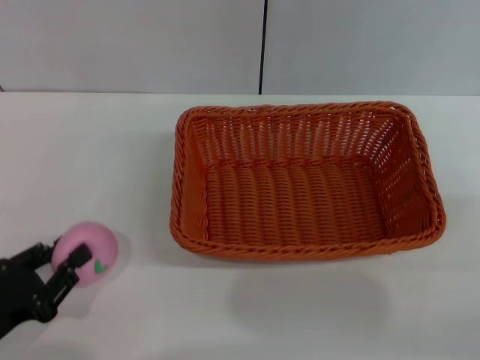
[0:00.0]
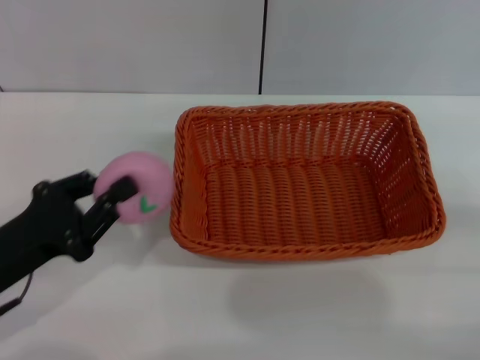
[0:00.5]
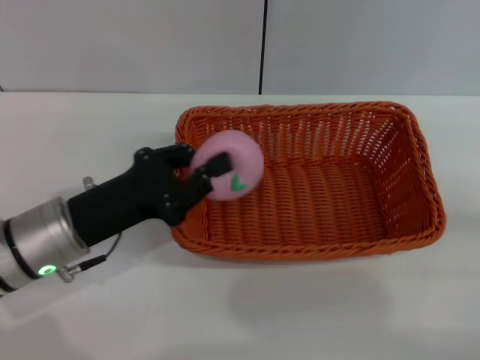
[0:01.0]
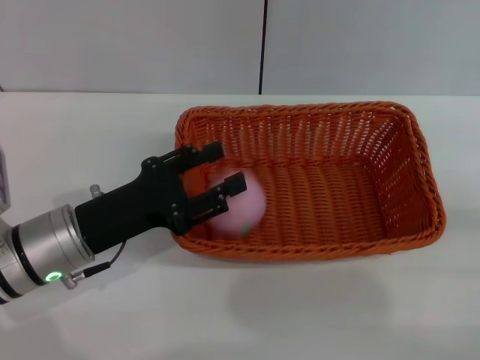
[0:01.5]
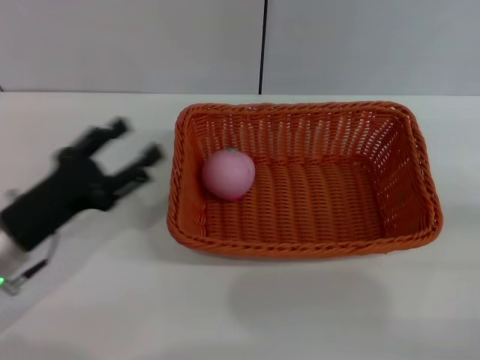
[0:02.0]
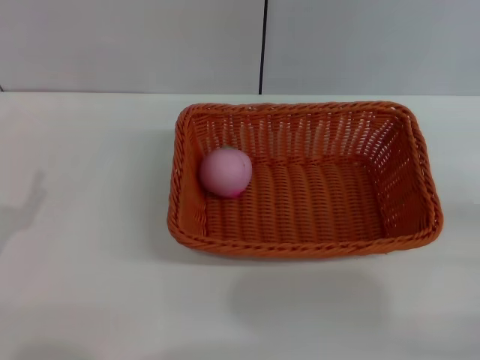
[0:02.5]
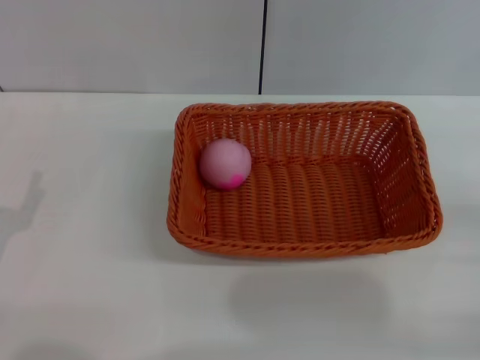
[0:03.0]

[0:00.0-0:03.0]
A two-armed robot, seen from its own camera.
Step, 0:00.5 to 0:01.5: Place the peach into the basket with the left gripper.
0:00.0 to 0:01.5: The left gripper heads forward and to the right, covering approximately 15 cm.
0:01.5 to 0:03.0: The left gripper travels to the left and backward by some 15 cm, and opens.

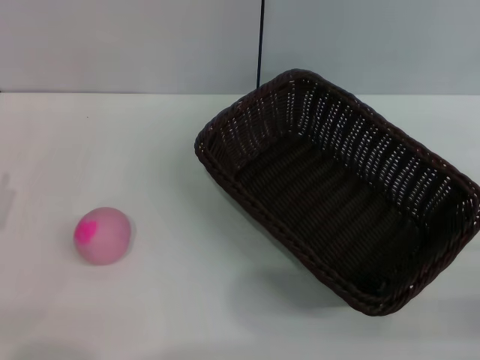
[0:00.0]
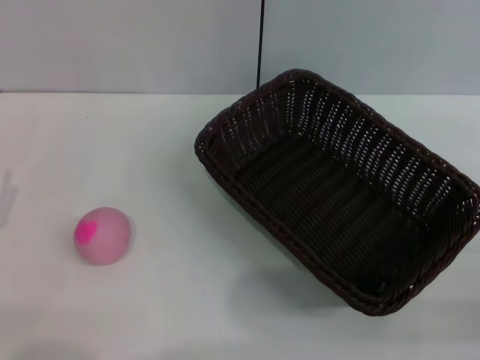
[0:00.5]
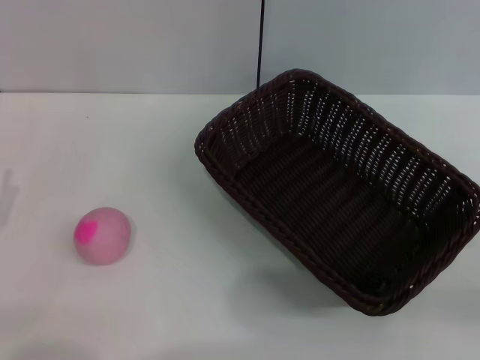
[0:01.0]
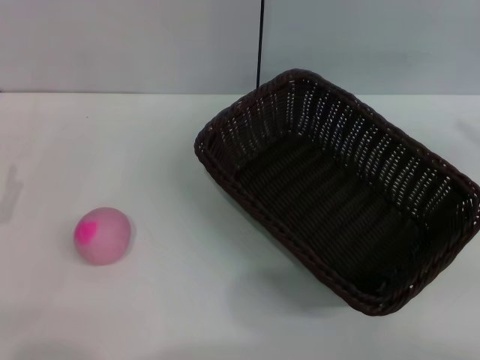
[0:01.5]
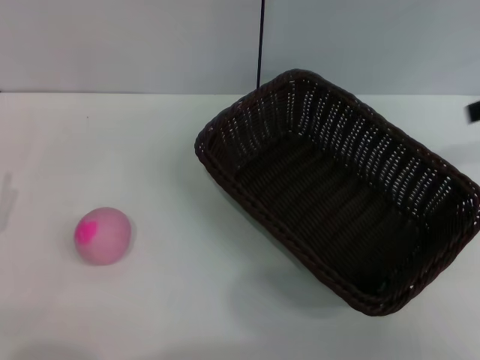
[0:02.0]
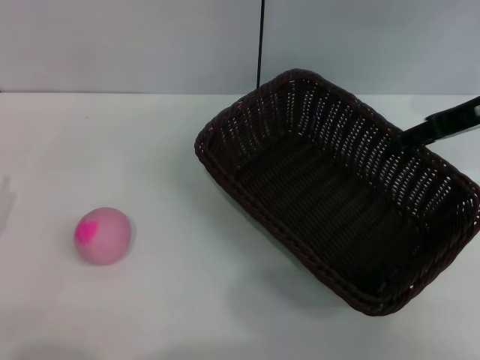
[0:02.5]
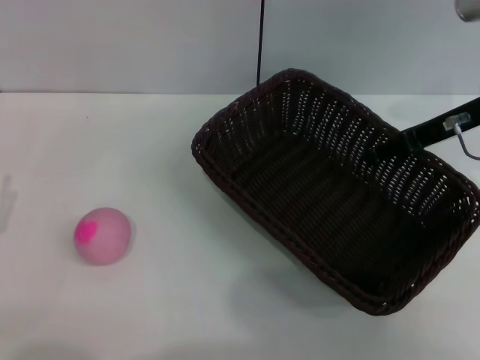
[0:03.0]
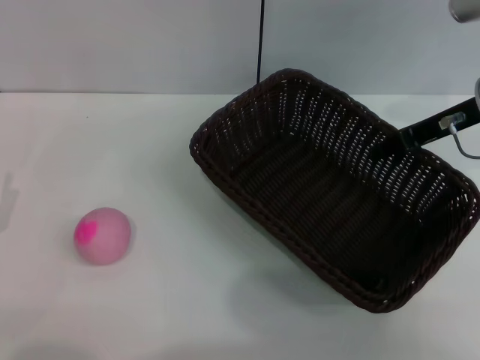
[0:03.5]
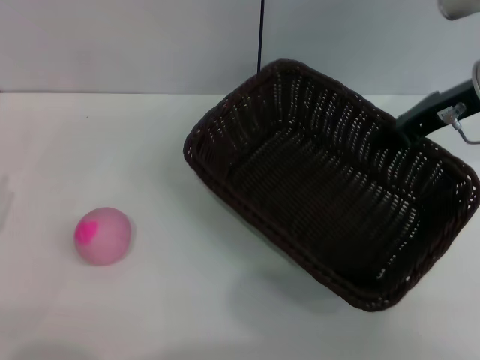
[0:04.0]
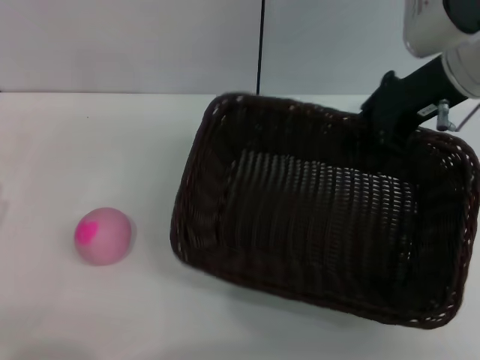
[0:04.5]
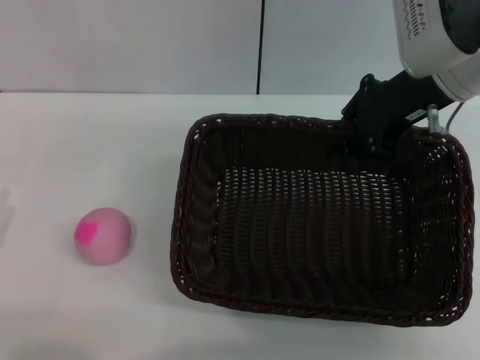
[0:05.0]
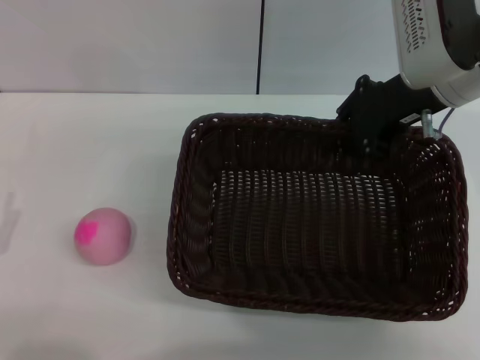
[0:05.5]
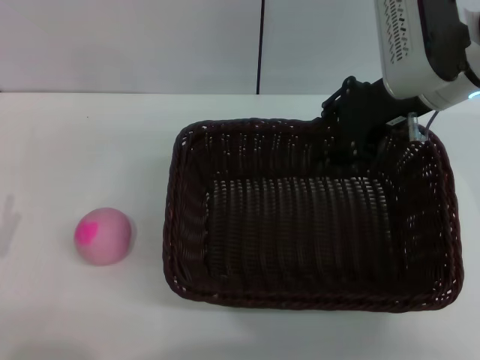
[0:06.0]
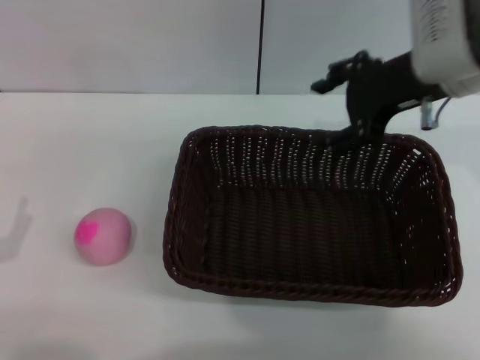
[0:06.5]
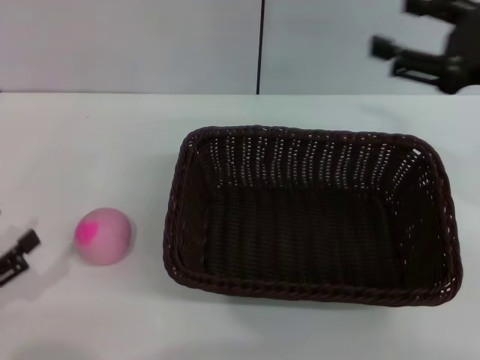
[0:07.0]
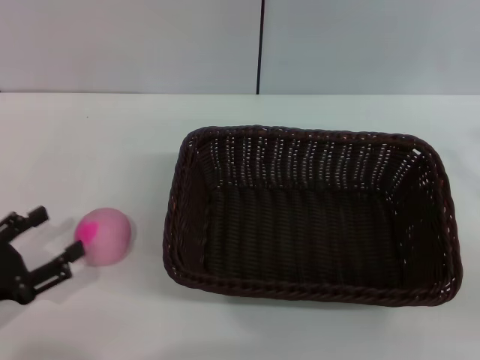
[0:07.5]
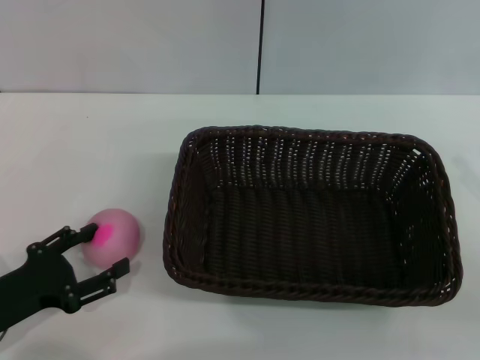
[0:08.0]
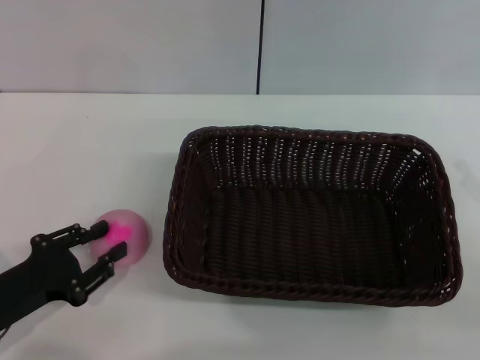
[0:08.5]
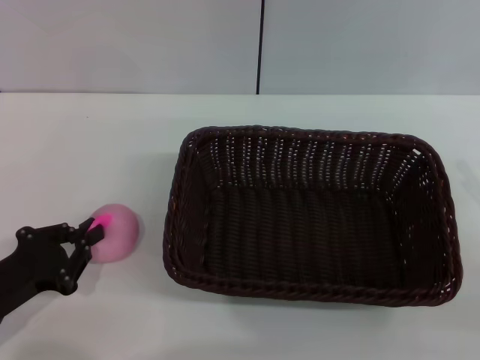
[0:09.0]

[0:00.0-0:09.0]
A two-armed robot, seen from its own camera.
Step, 0:00.0 to 0:04.0: Pick up the dark basket with the right gripper.
Step, 0:04.5 to 0:06.5: Place the dark basket in the center of view with the right gripper.
0:00.0 to 0:02.0: The right gripper shifts roughly 25 cm upward and forward, and opens.
0:02.0 to 0:04.5: The right gripper goes approximately 15 cm to the left, and closes up.
0:04.5 to 0:07.0: The right gripper moves to the right and backward, roughly 15 cm, and opens.
0:07.0 to 0:09.0: The left gripper travels to the right by some 5 cm, and closes up. Meanwhile the right gripper goes some 15 cm downward, backward and to the right.

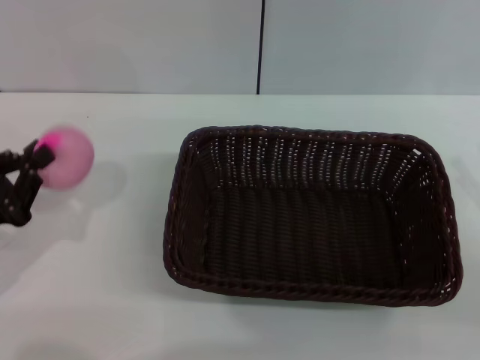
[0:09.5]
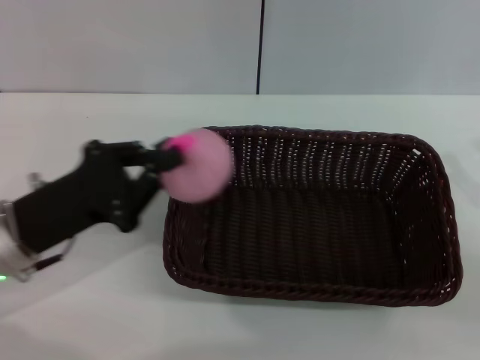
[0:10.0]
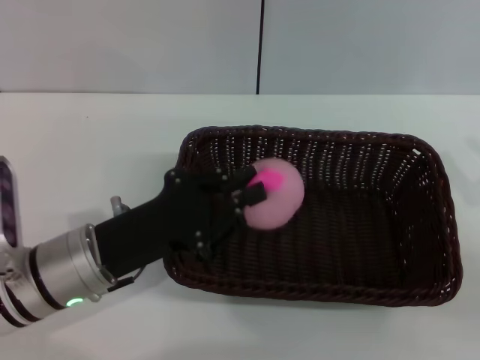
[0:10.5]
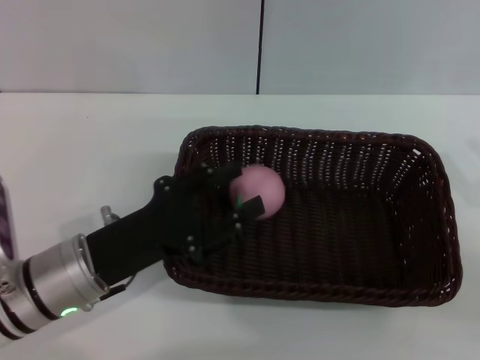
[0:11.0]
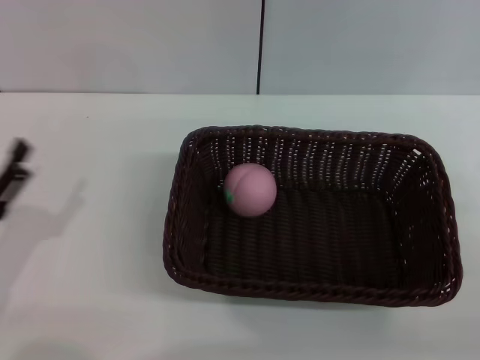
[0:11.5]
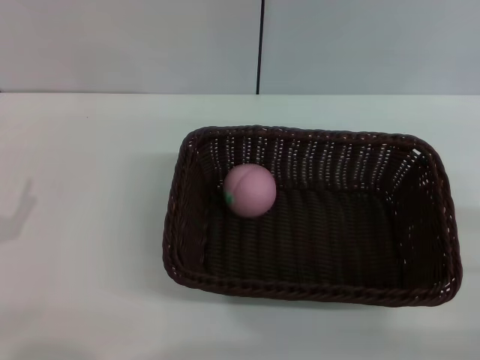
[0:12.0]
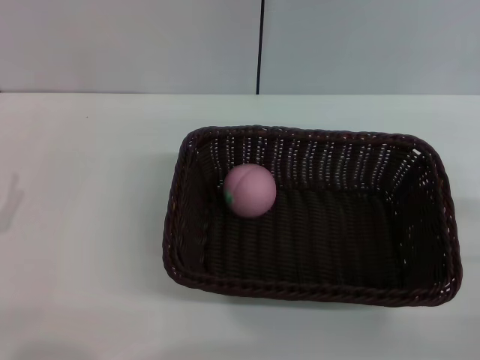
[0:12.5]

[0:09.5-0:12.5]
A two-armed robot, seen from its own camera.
Step, 0:10.0 to 0:11.0: Place the peach into the basket with the left gripper.
0:09.5 to 0:11.0: The left gripper shifts some 15 cm to the right, and opens its fingers.
0:11.0 to 0:12.5: The left gripper heads to the left and backward, covering some 15 cm, and opens.

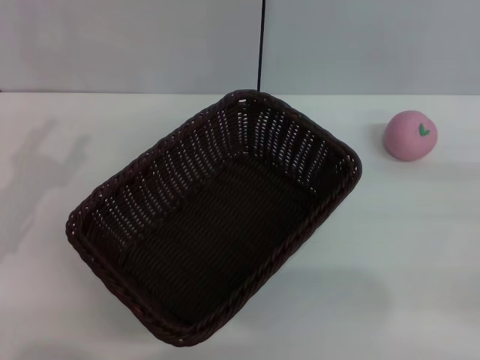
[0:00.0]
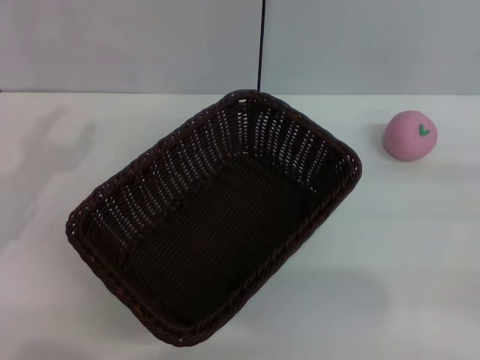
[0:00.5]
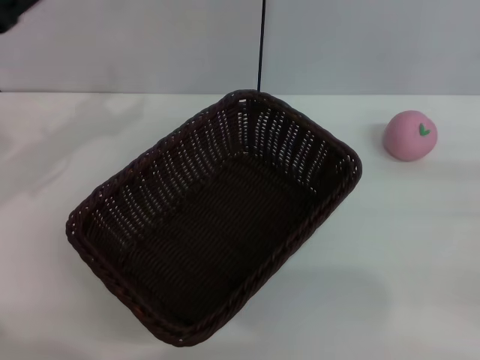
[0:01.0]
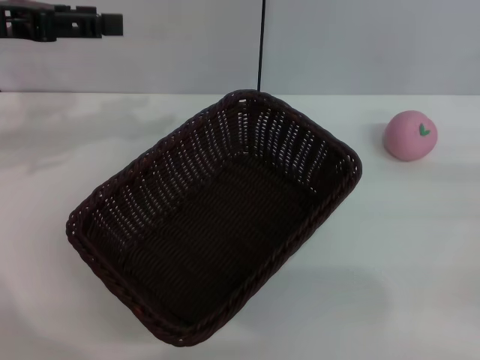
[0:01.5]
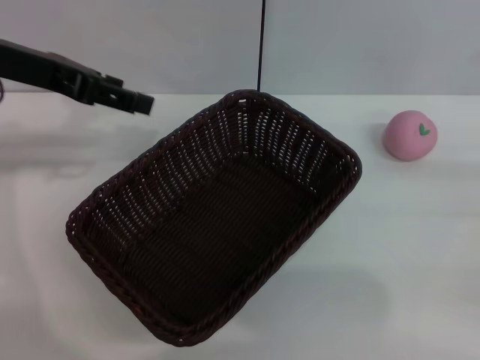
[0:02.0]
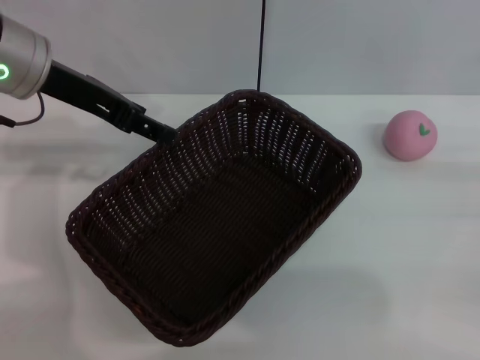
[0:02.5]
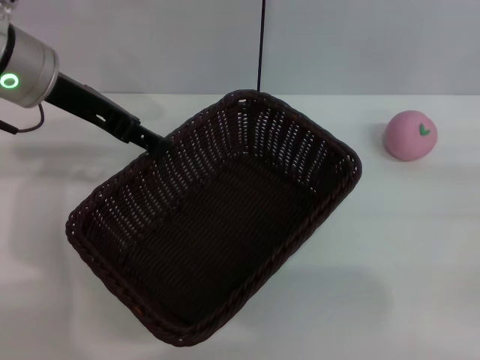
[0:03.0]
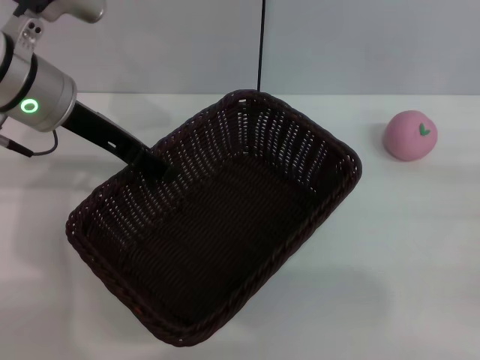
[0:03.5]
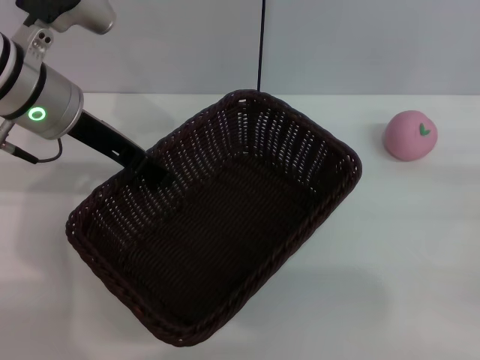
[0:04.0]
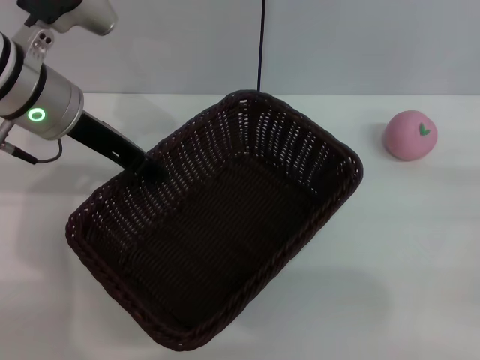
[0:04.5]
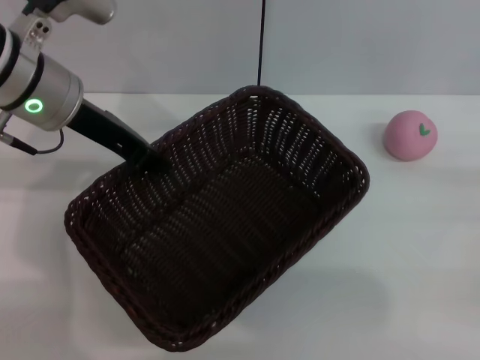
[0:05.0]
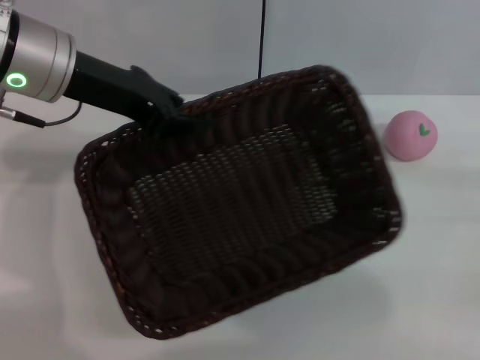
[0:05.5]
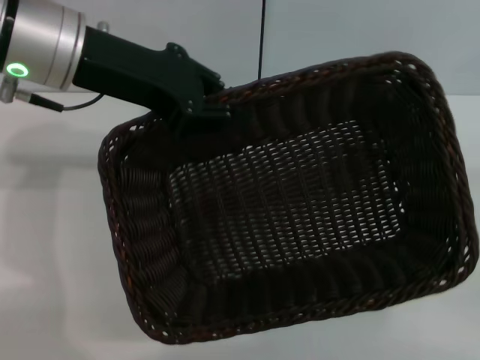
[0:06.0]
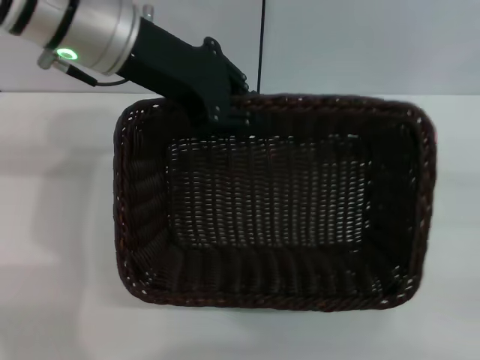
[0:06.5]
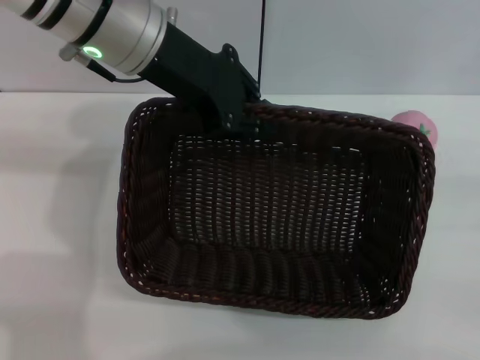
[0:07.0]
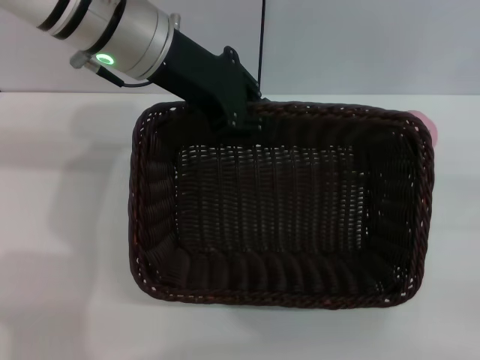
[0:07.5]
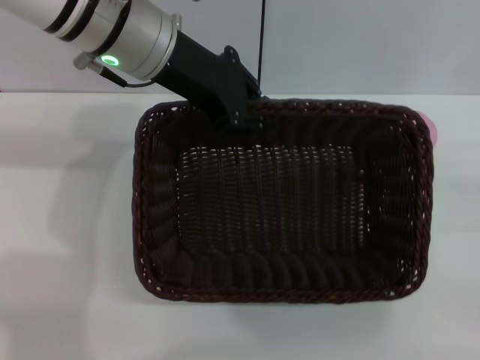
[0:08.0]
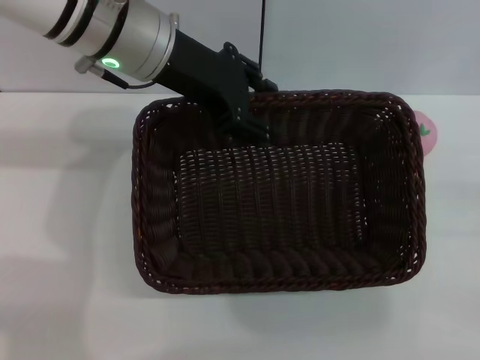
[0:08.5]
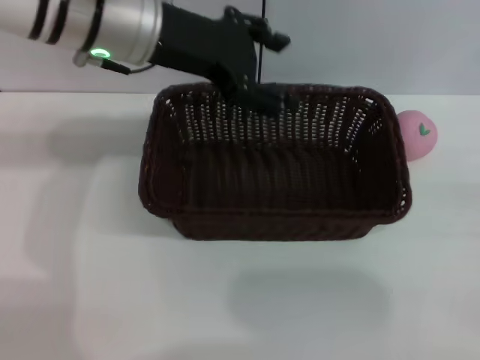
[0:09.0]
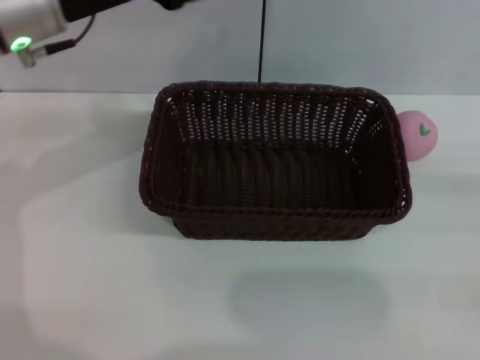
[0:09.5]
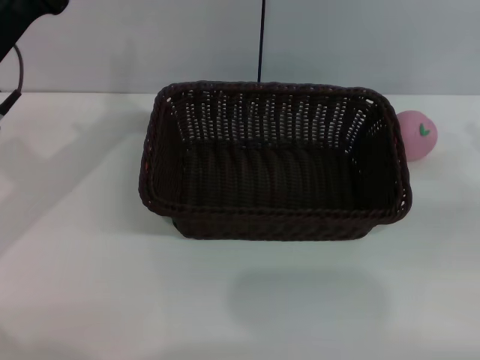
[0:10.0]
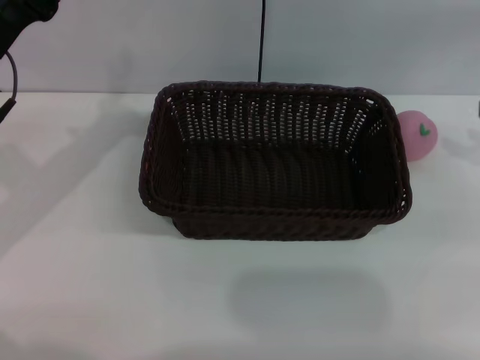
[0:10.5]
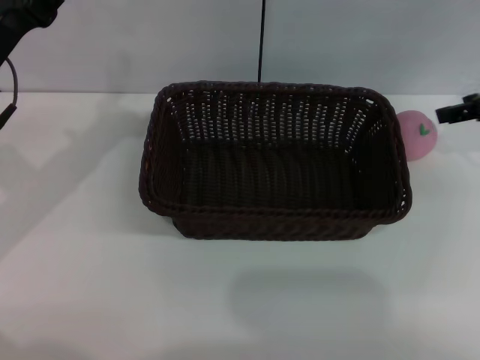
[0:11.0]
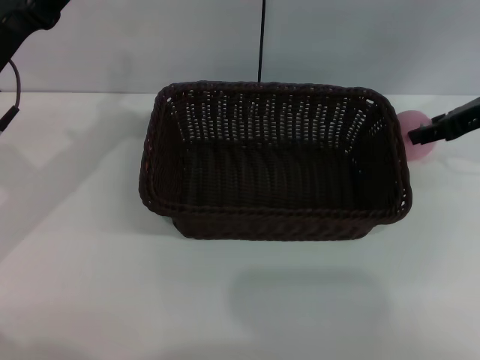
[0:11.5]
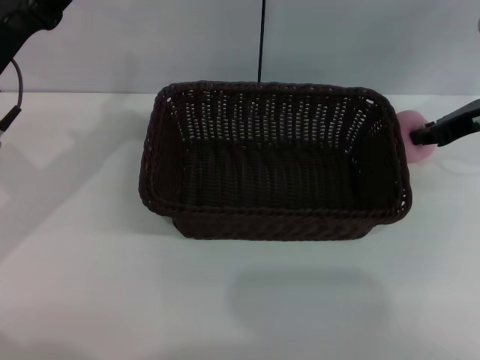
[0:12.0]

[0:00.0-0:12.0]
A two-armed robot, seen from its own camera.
Step, 0:00.0 to 0:05.5: Pick up the dark basket with the left gripper.
Step, 0:06.0 to 0:09.0: Place the dark basket in the center of view with the right gripper.
0:00.0 to 0:02.0: The left gripper moves forward, upward and to the right, roughly 20 cm.
0:02.0 to 0:04.0: The left gripper shifts roughly 10 cm to the right and downward.
0:04.0 to 0:06.0: The left gripper shifts some 5 cm upward, and closes up.
0:06.0 to 0:08.0: The left gripper shifts about 5 cm to the right.
0:08.0 to 0:10.0: The right gripper travels upward by roughly 5 cm, while the left gripper travels to the left, downward and backward by about 15 cm, and opens up.
0:10.0 to 0:12.0: The right gripper travels forward and to the left by about 15 cm, and closes up.
